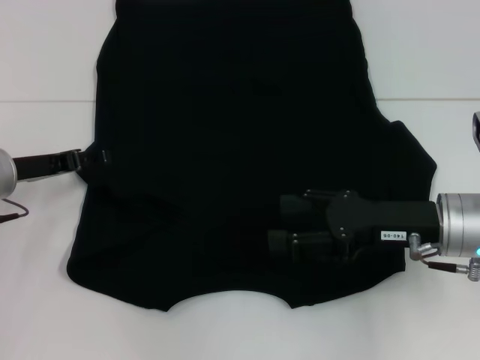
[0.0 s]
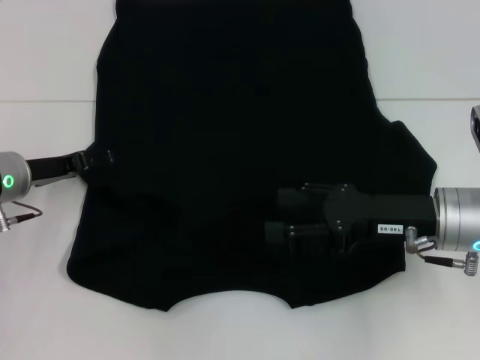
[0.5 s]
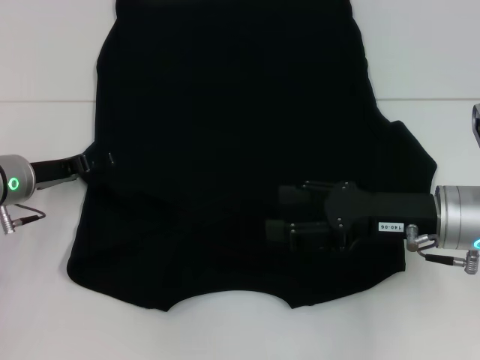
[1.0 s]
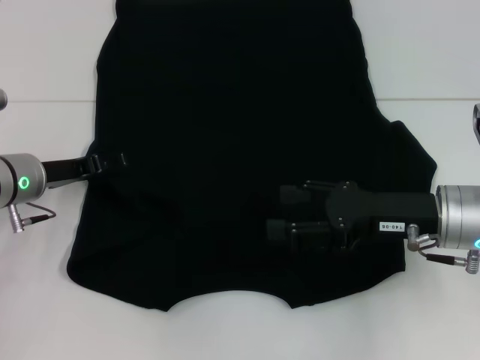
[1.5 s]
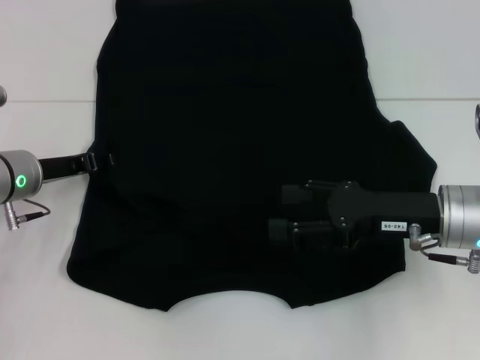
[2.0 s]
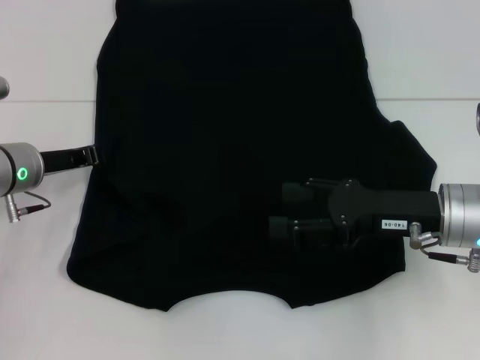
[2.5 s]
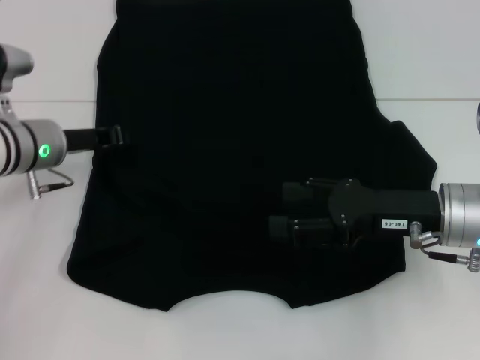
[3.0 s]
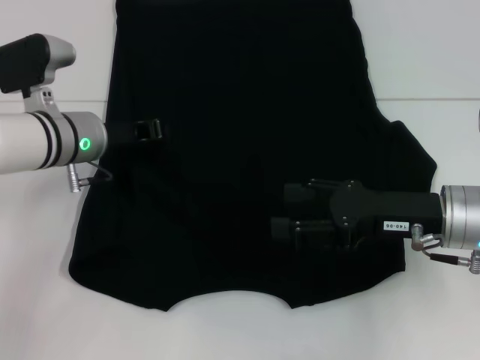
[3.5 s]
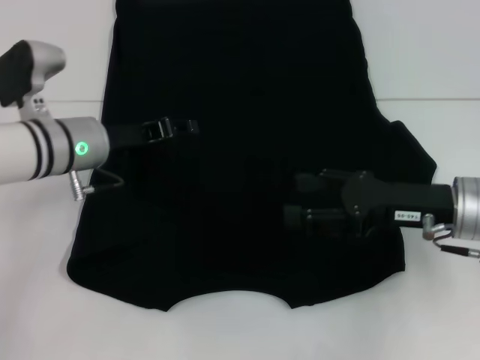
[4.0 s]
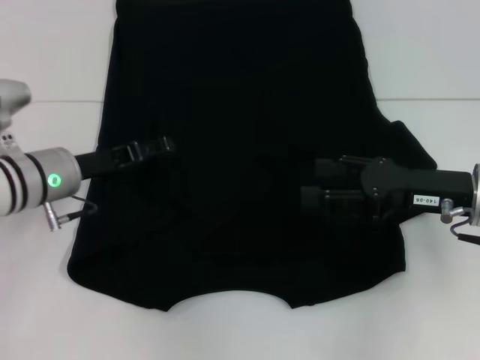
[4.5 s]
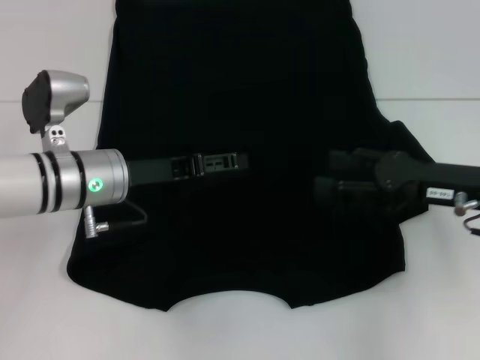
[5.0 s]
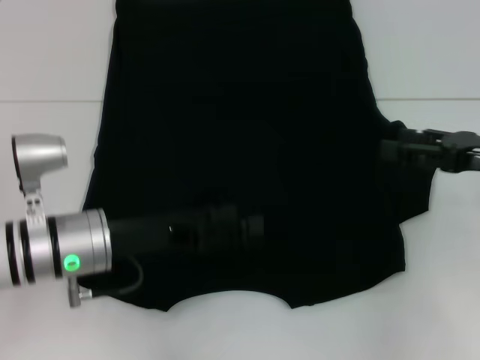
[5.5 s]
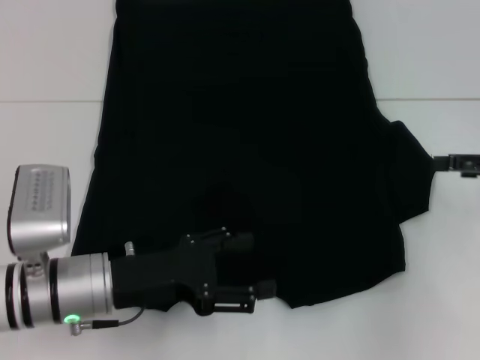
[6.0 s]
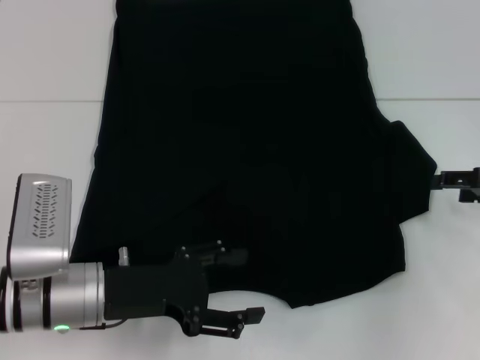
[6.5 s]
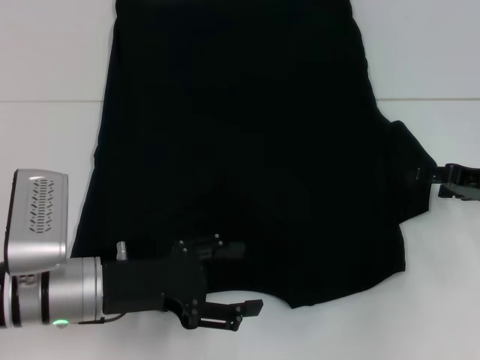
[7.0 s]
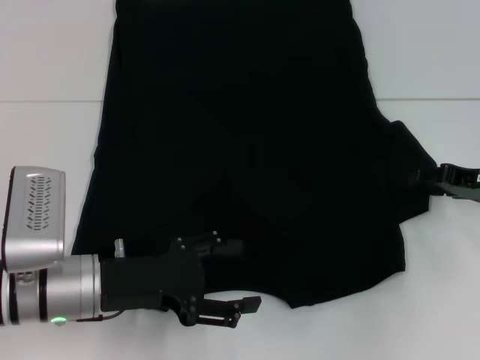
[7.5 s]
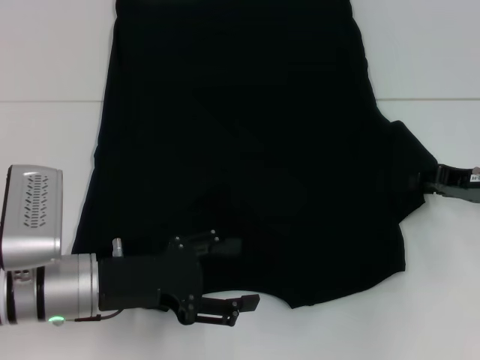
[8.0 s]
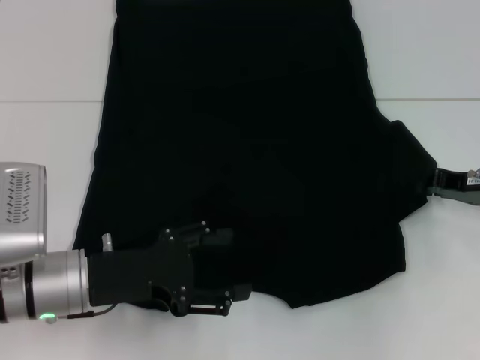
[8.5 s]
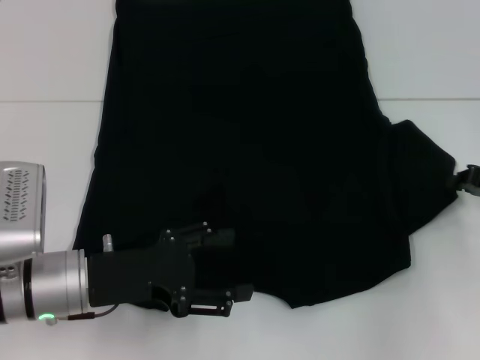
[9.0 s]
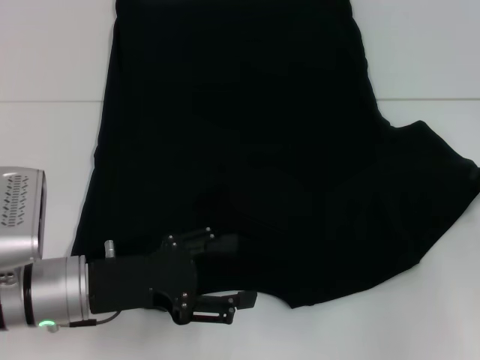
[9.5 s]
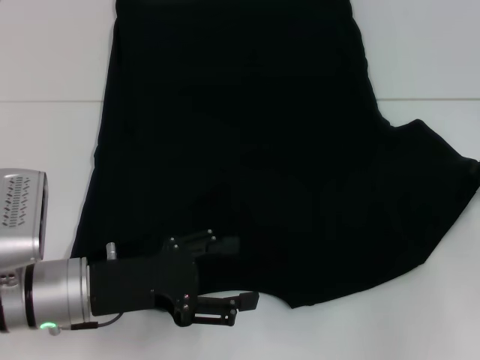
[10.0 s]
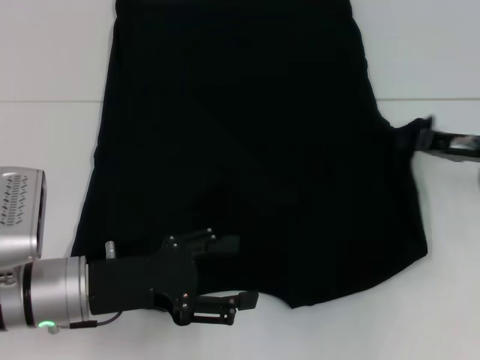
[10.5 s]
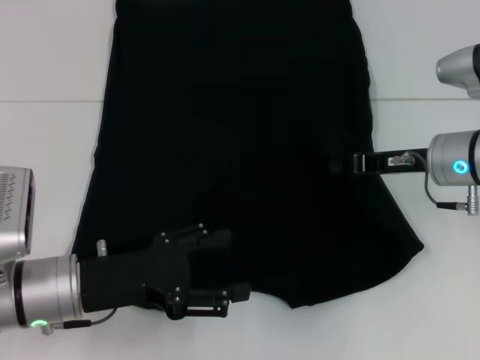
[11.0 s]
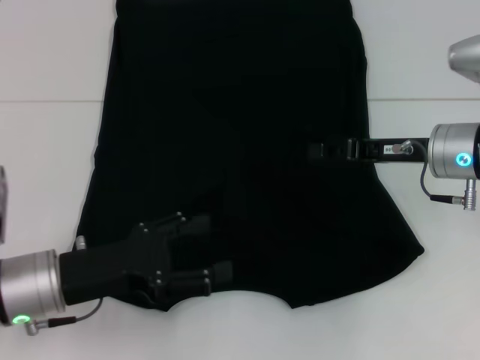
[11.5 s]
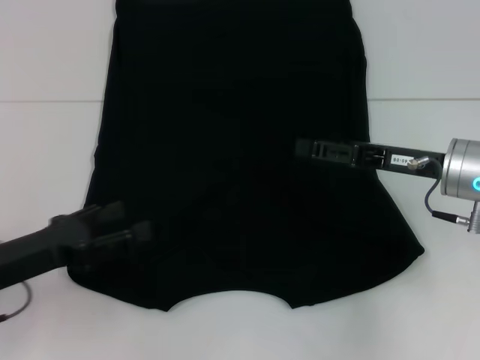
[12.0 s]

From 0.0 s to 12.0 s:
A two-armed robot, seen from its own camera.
Step, from 0.0 s to 4.5 s: Fold the bottom left sleeve with your left hand.
Step, from 5.0 s to 11.0 s: Fold the bottom right sleeve with your right hand.
From 0.0 s to 2.0 s: The grippers move only a little.
From 2.0 s to 4.0 s: The left gripper shifts approximately 5 cm to the right, and closes its fingers.
From 4.0 s to 6.0 s: The left gripper heads backward, covering approximately 15 cm, and opens. The right gripper is displaced to the right by some 15 cm.
From 6.0 s to 8.0 s: The right gripper moves some 5 cm, and closes its fingers.
From 8.0 s to 10.0 s: The right gripper shifts roughly 5 cm to the right, and closes its fingers.
From 10.0 s to 12.0 s: The left gripper heads to the left, covering roughly 10 cm, while the right gripper shifts roughly 15 cm to the left, and opens its fingers.

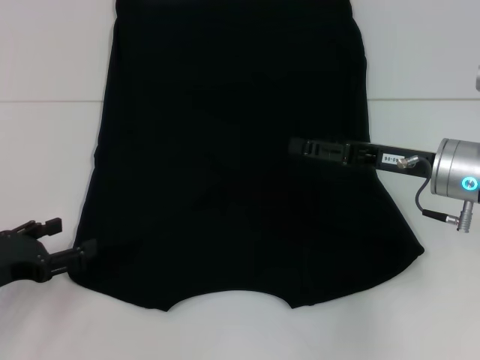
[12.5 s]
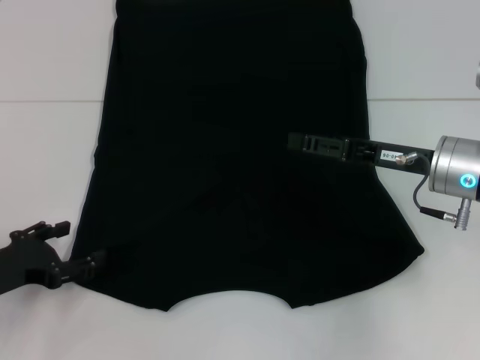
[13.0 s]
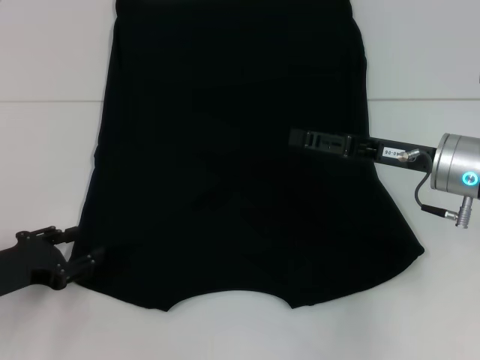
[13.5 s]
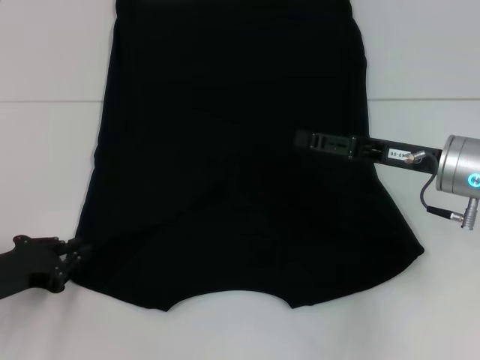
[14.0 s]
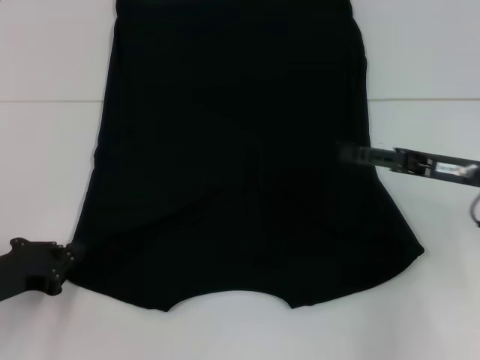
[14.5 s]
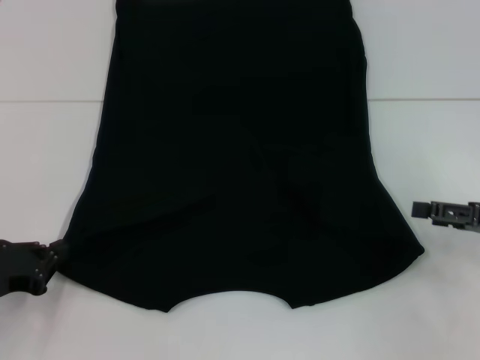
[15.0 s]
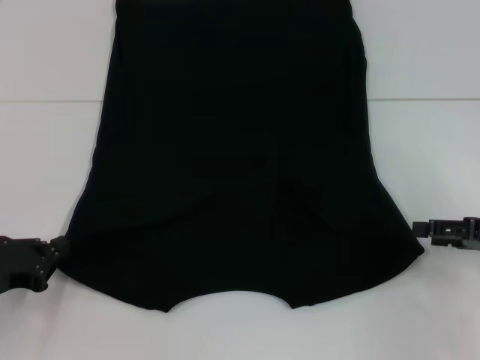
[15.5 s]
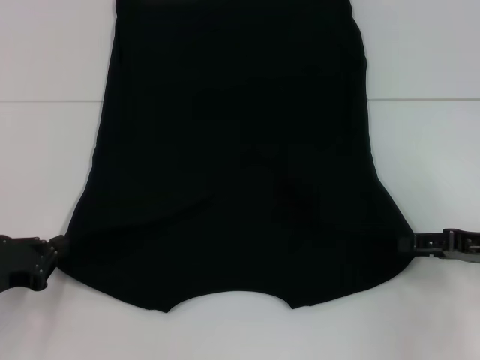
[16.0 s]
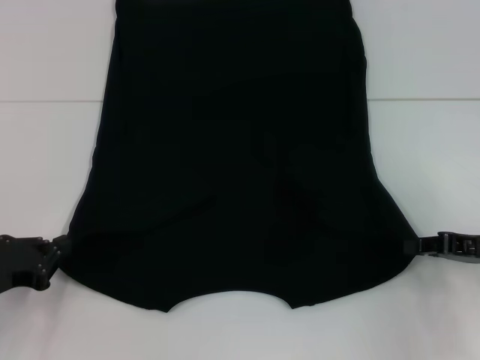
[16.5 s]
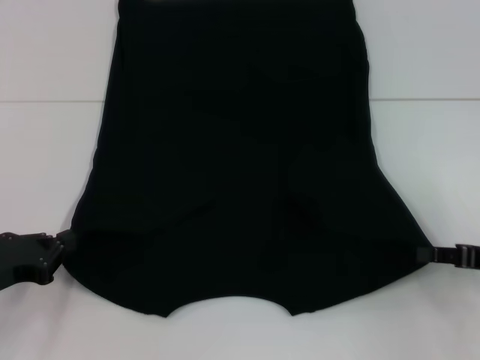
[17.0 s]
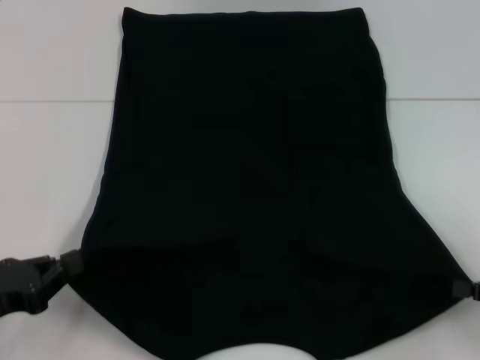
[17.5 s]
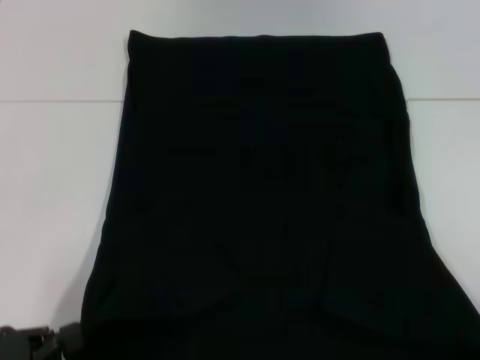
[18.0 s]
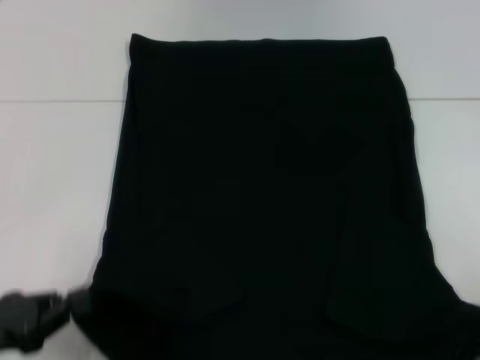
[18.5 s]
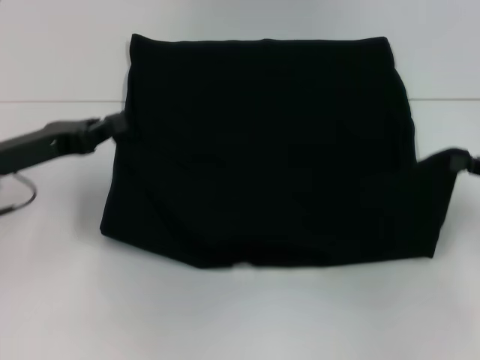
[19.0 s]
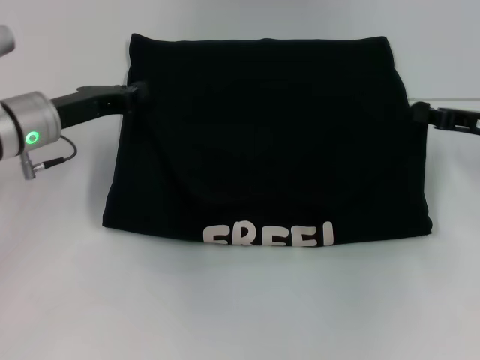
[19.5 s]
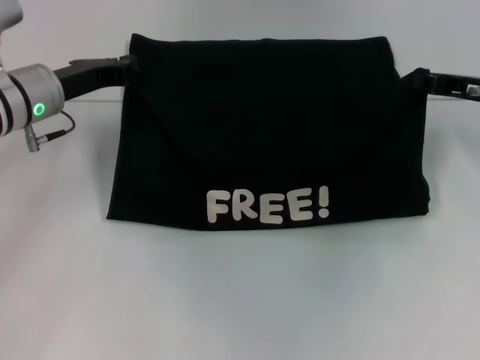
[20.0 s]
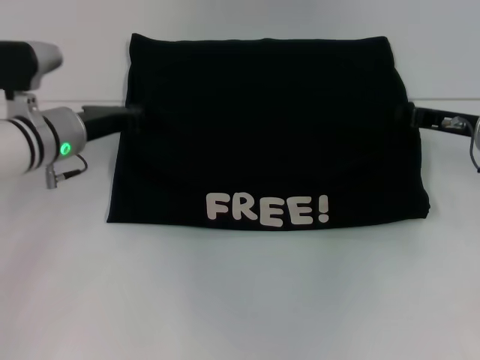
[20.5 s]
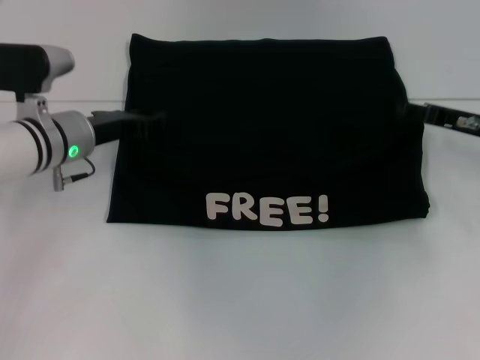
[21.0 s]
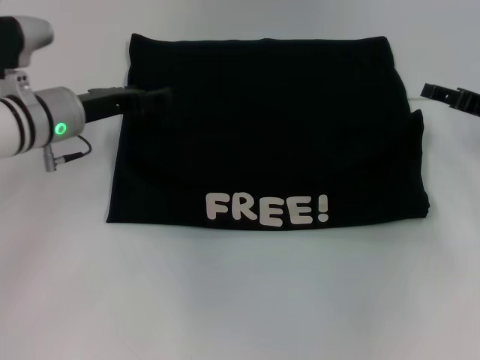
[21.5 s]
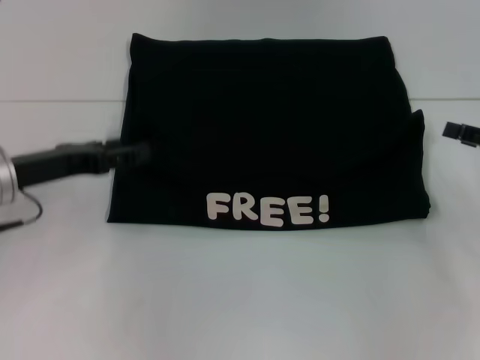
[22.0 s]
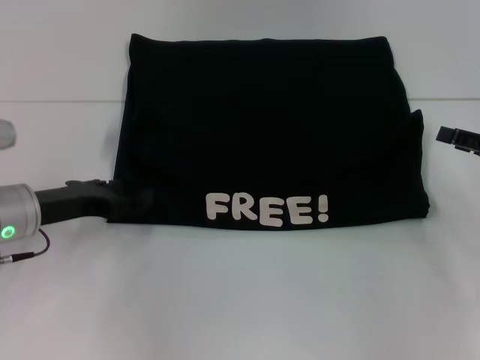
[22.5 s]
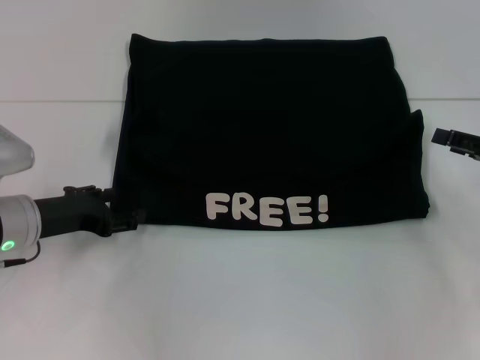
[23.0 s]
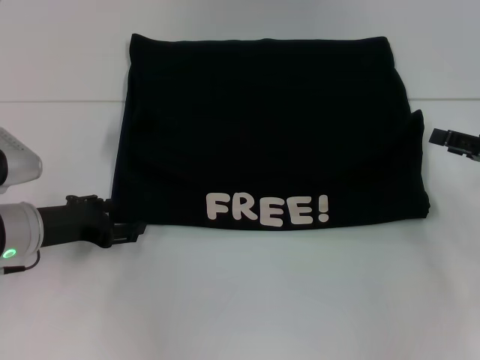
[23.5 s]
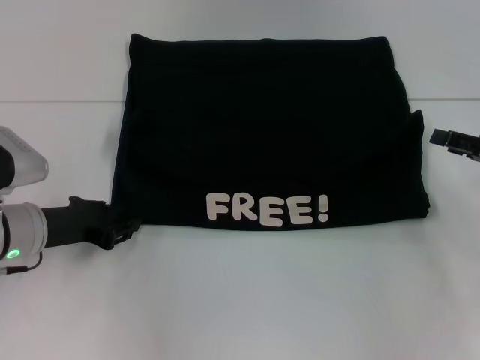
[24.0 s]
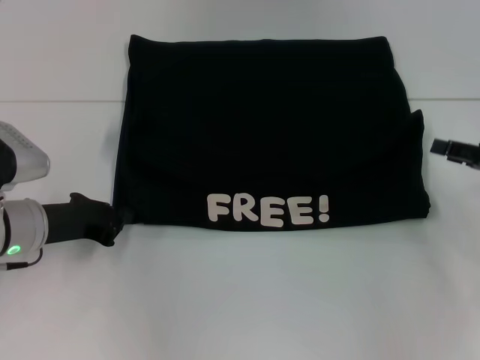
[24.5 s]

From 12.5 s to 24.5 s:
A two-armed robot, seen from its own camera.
Step, from 12.5 s to 14.5 s: Grab the bottom left corner with your left hand.
Step, from 15.0 s to 16.5 s: Grab the bottom right corner with your right hand.
Step, from 17.0 s to 21.0 s: Fold the clothes with your left hand.
Step, from 17.0 s to 21.0 s: Fold the clothes with your right hand.
From 12.5 s to 14.5 s: The left gripper closes up; the right gripper shifts by approximately 5 cm.
From 14.5 s to 16.5 s: The right gripper heads to the right, covering approximately 5 cm, and closes.
From 16.5 s to 18.5 s: The left gripper shifts approximately 5 cm backward. The right gripper is displaced backward and to the right by about 15 cm.
From 18.5 s to 20.5 s: The left gripper moves forward and to the right, some 25 cm, while the right gripper travels forward and to the left by about 25 cm.
From 20.5 s to 22.5 s: The left gripper shifts approximately 10 cm backward, and opens. The right gripper goes approximately 10 cm to the right and backward, and opens its fingers.
From 22.5 s to 24.5 s: The left gripper closes its fingers.

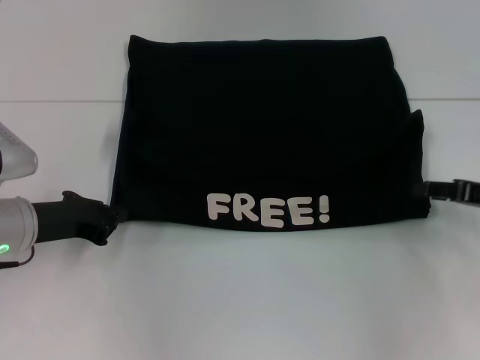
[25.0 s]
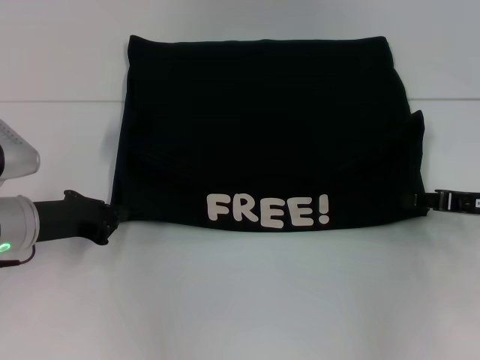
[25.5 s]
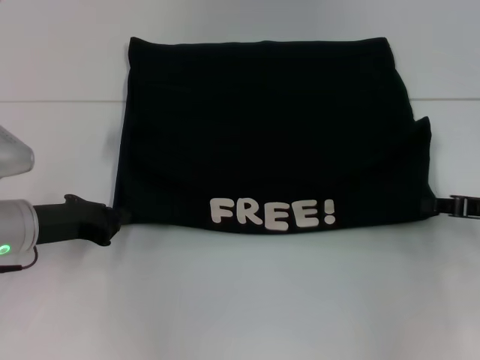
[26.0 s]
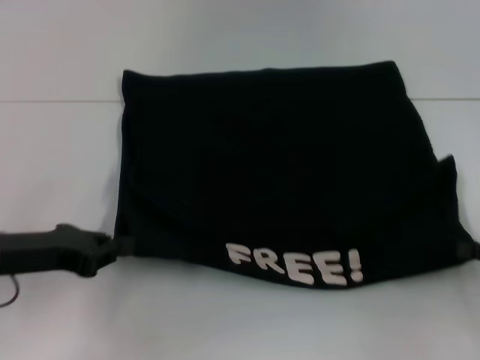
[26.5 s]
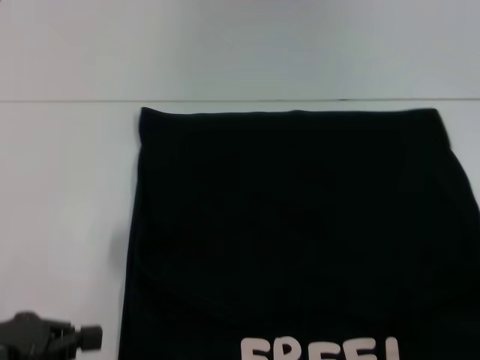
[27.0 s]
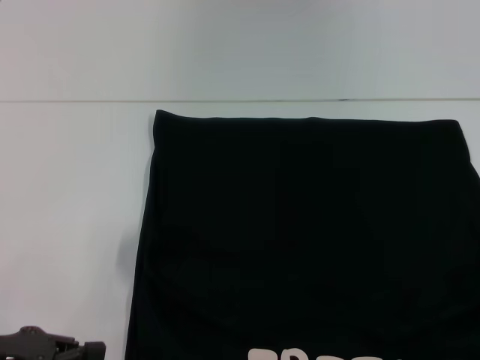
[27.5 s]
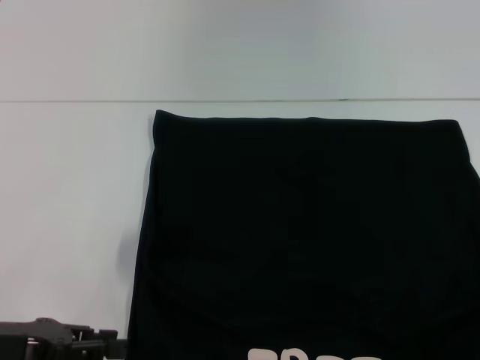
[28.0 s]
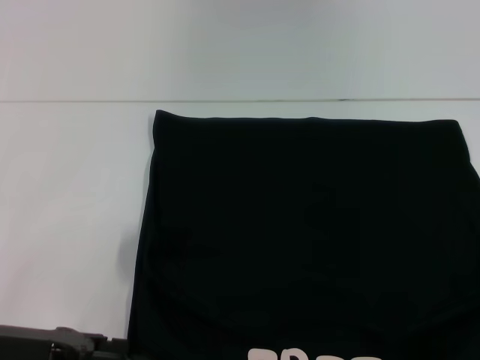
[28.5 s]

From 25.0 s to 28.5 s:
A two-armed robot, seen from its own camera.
Step, from 25.0 s to 27.0 s: Pull the clothes with your left hand.
Step, from 25.0 s to 27.0 s: Pull the clothes with your right hand.
From 25.0 s to 27.0 s: The right gripper goes roughly 20 cm backward and to the right, and closes up. Meanwhile the left gripper travels backward by roughly 15 cm.
From 27.0 s to 28.5 s: The left gripper changes place by approximately 5 cm, and opens its fingers.
